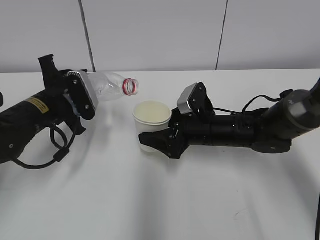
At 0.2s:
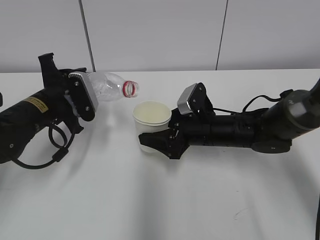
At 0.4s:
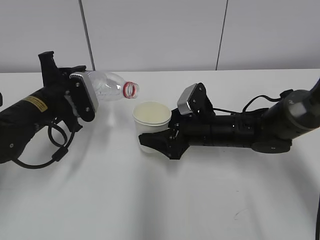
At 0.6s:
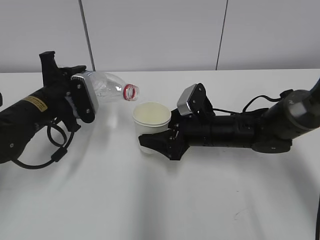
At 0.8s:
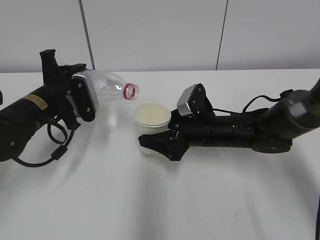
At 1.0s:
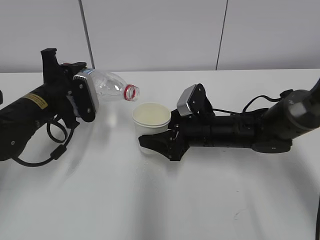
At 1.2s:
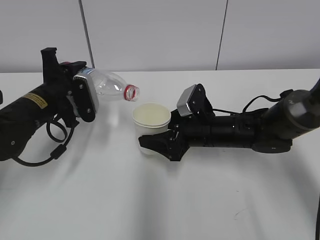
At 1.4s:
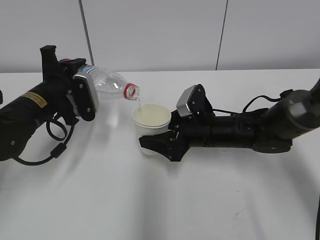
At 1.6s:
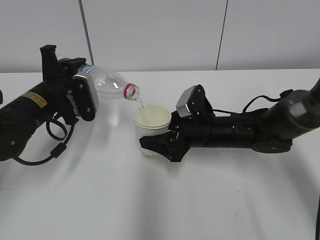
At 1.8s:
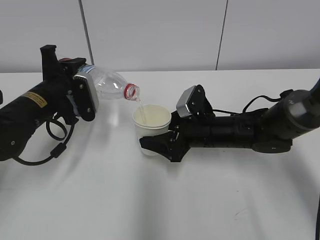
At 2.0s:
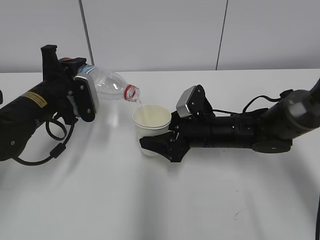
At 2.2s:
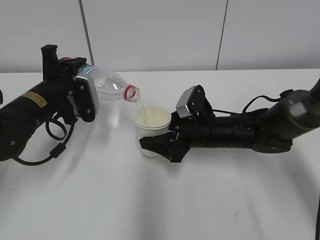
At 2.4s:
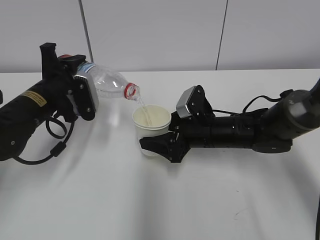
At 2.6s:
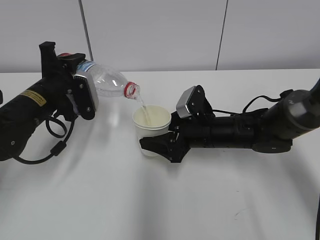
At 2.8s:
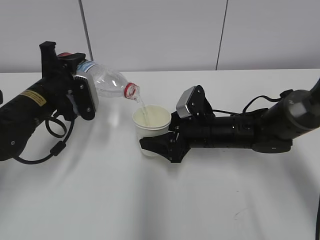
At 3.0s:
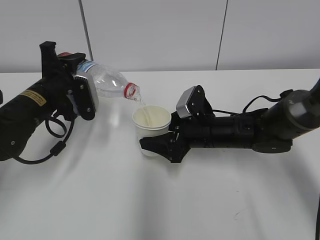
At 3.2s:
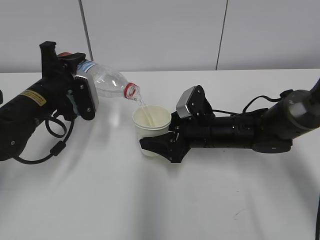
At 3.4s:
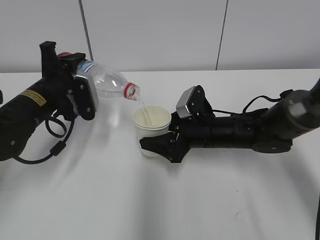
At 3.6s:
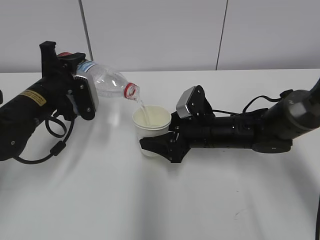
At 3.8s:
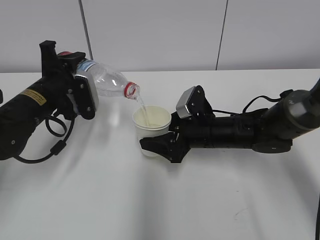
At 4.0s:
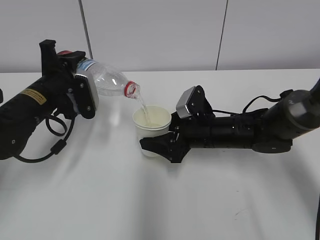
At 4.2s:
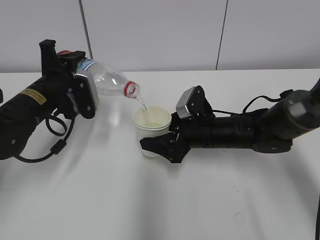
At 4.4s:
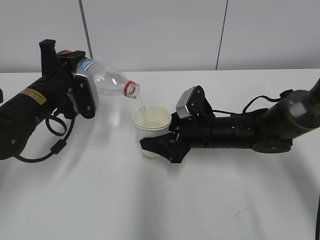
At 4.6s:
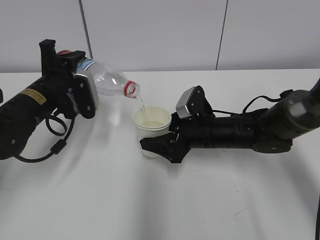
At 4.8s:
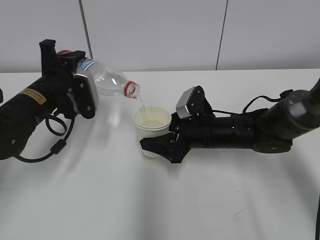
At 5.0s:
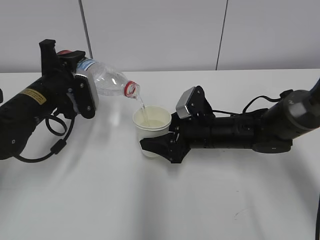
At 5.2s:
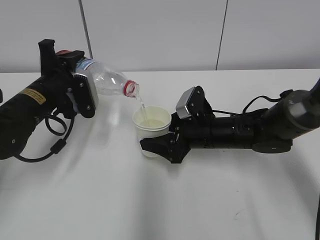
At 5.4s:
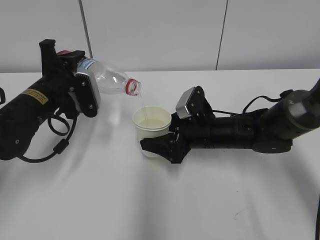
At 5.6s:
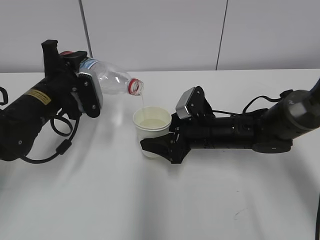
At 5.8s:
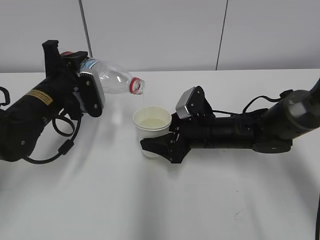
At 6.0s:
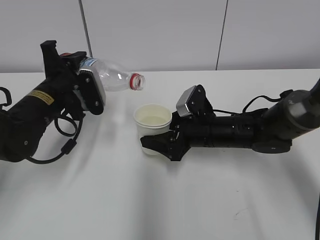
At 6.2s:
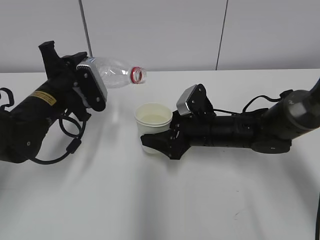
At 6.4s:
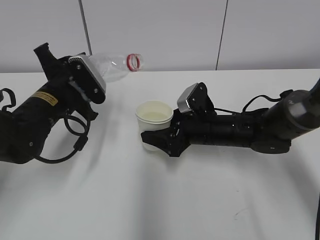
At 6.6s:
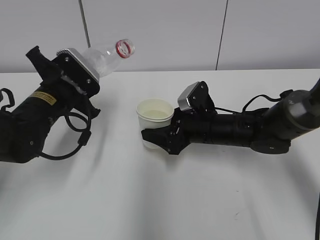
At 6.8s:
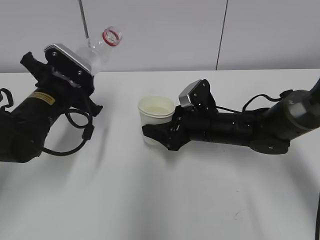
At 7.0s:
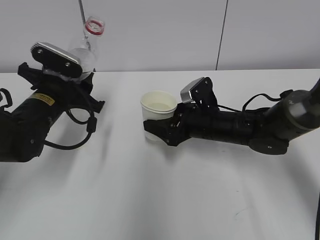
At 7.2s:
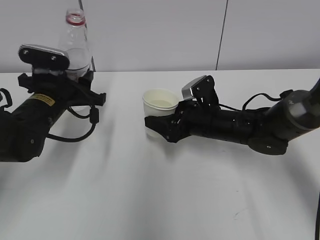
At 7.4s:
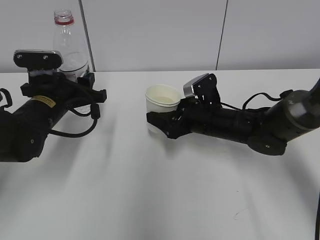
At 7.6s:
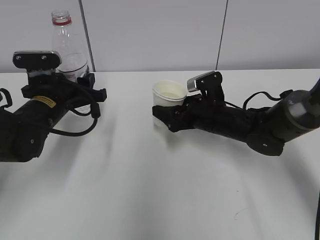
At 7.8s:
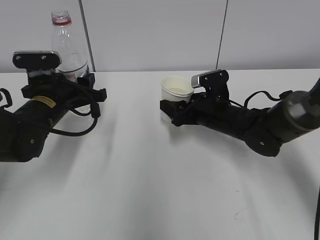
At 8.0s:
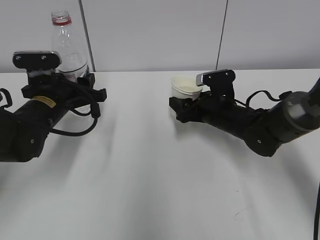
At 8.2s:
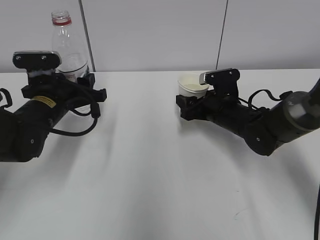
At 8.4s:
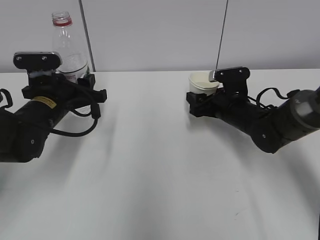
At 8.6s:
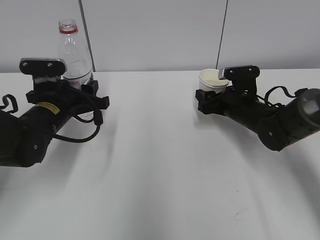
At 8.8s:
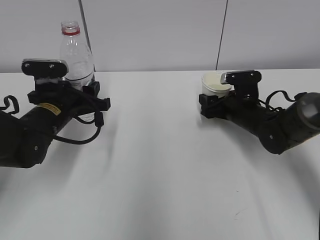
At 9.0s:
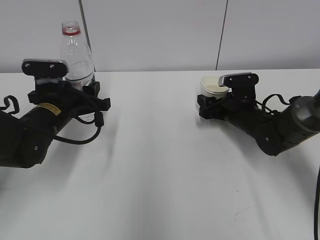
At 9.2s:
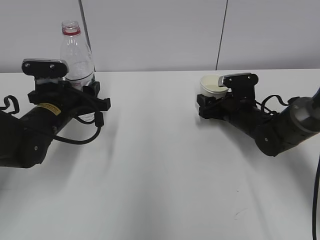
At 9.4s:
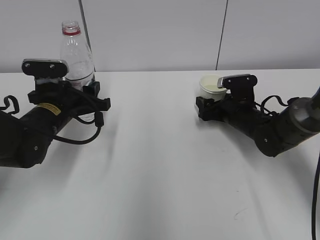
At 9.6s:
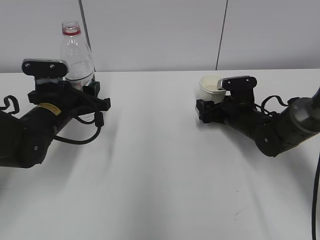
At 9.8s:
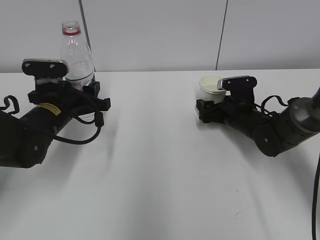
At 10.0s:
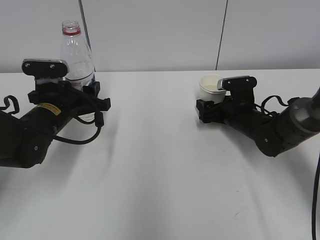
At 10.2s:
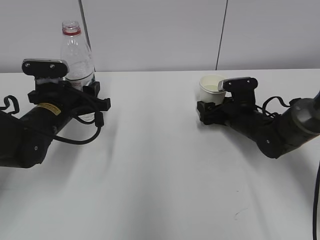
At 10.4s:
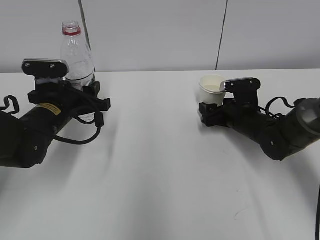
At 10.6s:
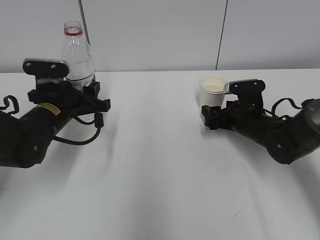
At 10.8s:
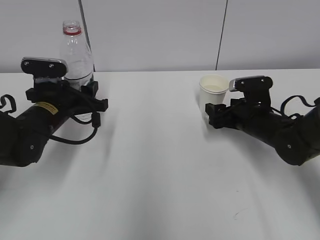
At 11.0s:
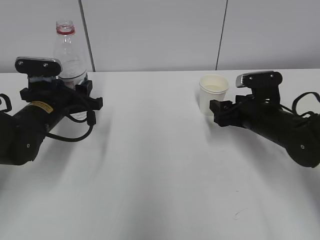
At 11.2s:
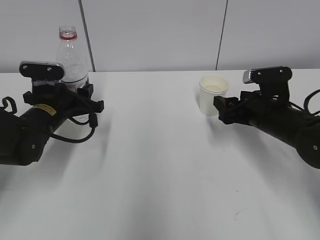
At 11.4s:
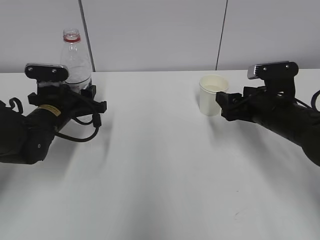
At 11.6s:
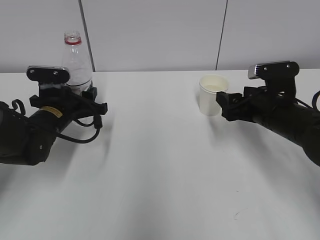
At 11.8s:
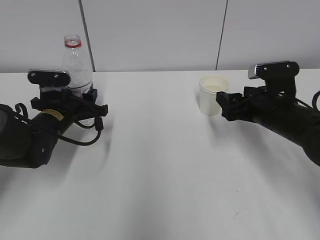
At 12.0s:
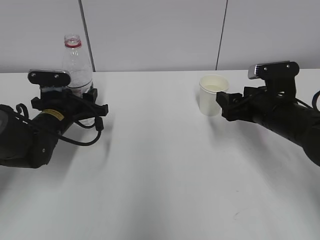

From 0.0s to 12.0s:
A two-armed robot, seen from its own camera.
Step, from 0.0s to 2.8s: Fill water with the right hand.
Step, from 0.0s to 2.8s: Pour water with the left hand.
Step, from 5.8s to 8.0s: Place the water bottle with the left hand.
From 0.0s to 1.6s: There are only small adjustments of the grippers.
From 1.6s to 4.4s: Both grippers stay about where they are.
From 4.4s to 6.0s: The grippers stay close to where they were, moving slightly.
From 7.6s to 9.0s: The right gripper shifts roughly 5 cm to the right.
From 9.0s to 10.4s: The grippers move only a little.
From 10.4s to 12.0s: The right gripper is displaced upward and backward by some 10 cm.

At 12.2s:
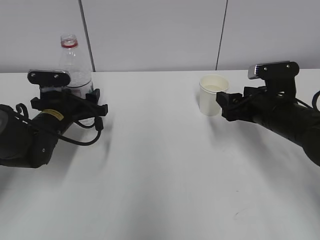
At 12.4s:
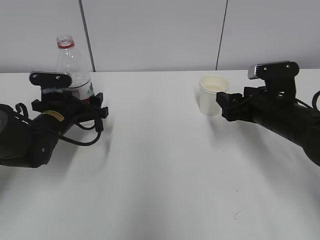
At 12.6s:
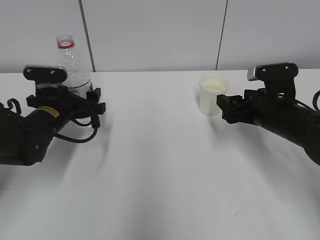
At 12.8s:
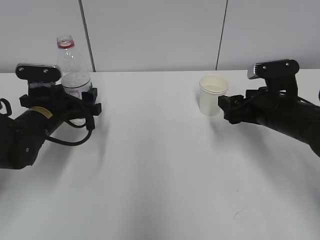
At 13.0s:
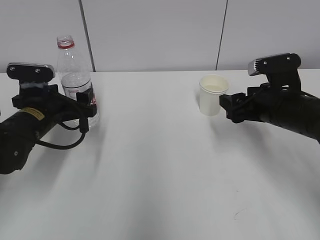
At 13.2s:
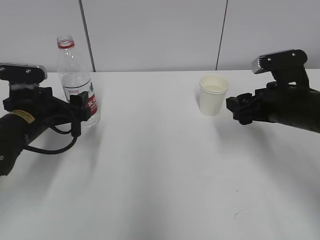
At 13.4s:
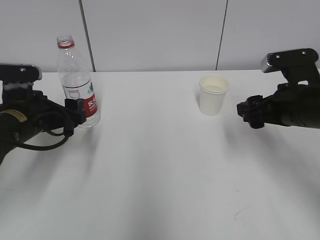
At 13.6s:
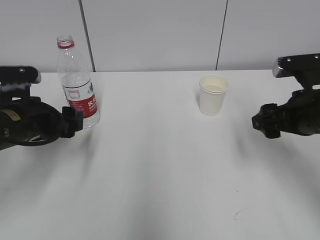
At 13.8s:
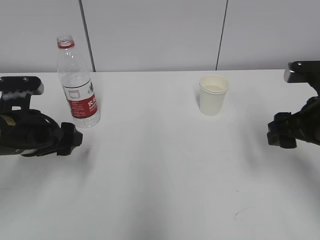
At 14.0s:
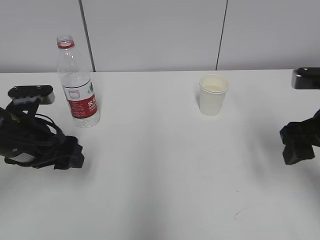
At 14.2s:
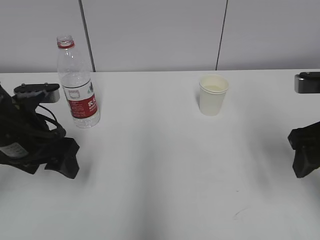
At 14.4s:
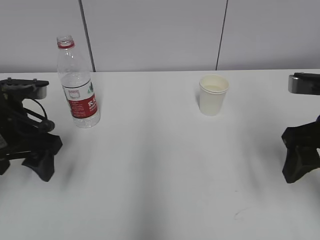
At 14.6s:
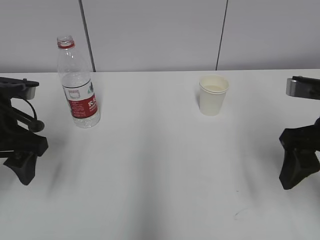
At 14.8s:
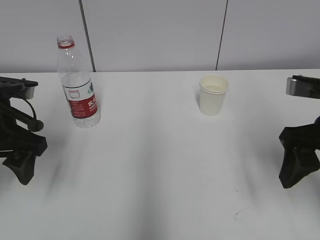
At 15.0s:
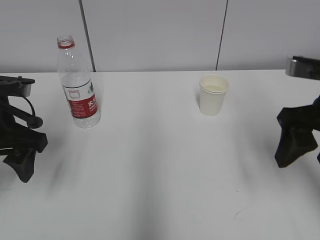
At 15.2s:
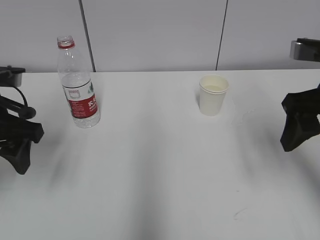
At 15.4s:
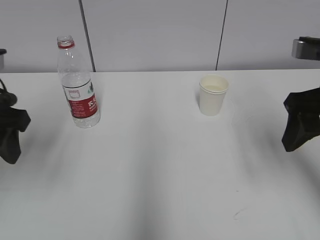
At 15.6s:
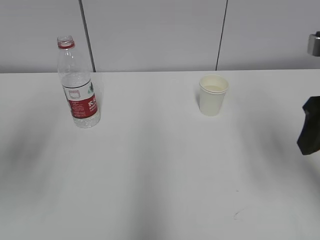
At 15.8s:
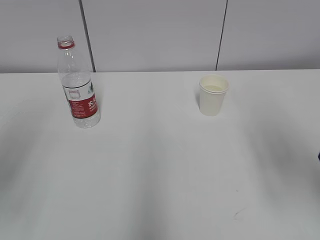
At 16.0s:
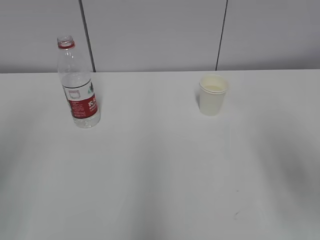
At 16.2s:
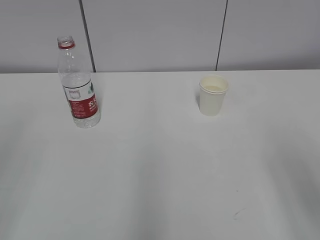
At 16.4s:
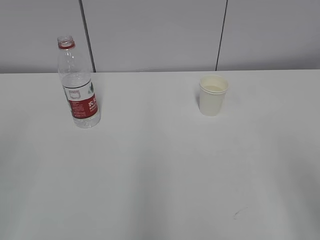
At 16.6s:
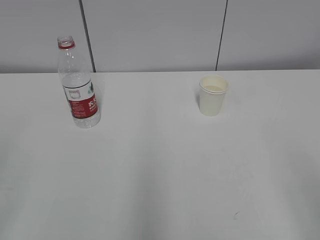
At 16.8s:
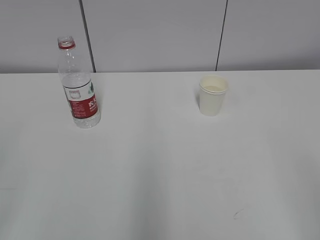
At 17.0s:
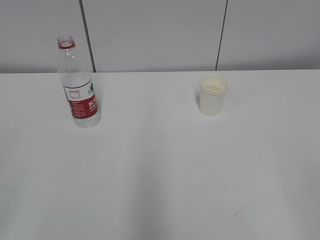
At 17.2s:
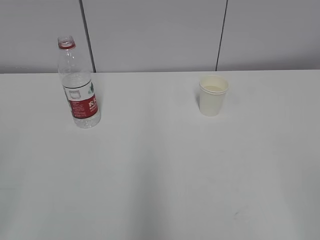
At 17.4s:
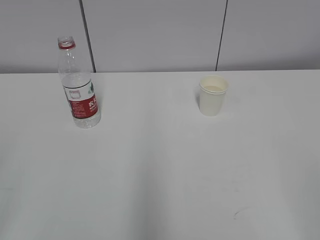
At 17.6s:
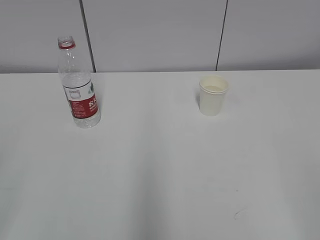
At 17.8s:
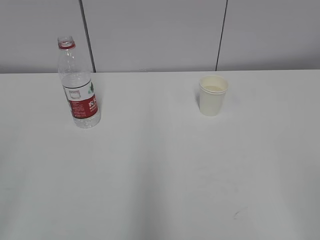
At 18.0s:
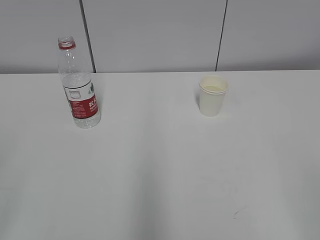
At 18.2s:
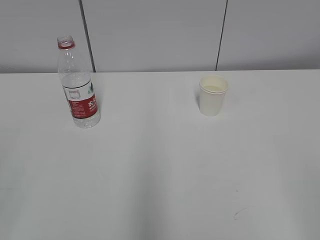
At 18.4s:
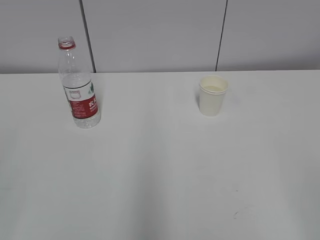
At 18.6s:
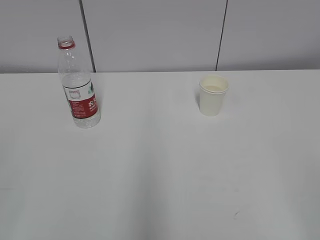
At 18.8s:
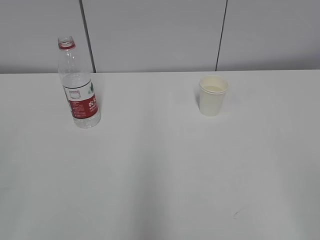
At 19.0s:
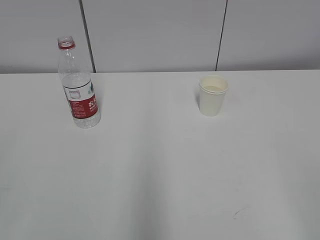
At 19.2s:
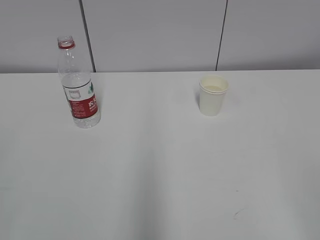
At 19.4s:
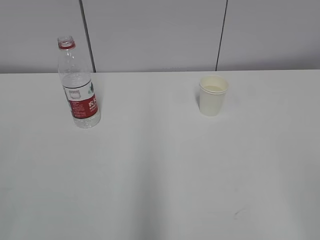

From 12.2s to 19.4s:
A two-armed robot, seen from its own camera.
From 12.2s to 13.6s: The two grippers go some 10 cm backward and upward.
From 13.6s to 15.0s: Both grippers move upward, roughly 5 cm.
From 15.0s to 16.6s: Both grippers move backward, approximately 25 cm.
